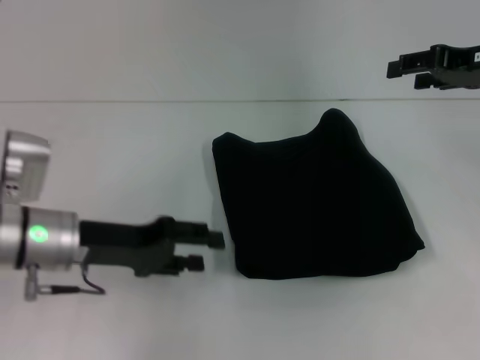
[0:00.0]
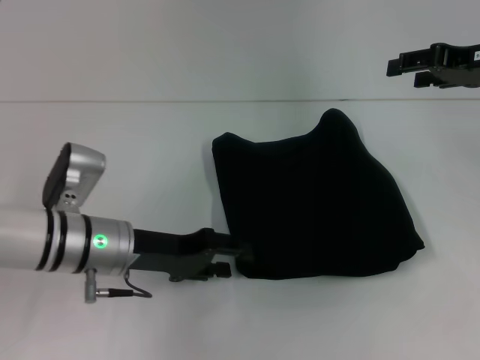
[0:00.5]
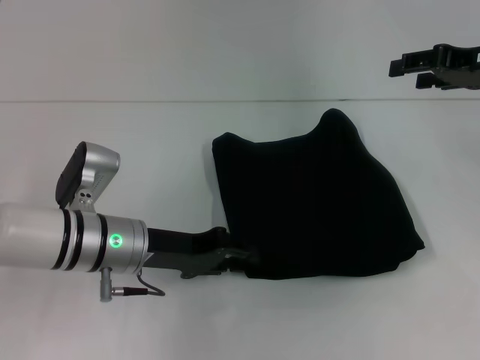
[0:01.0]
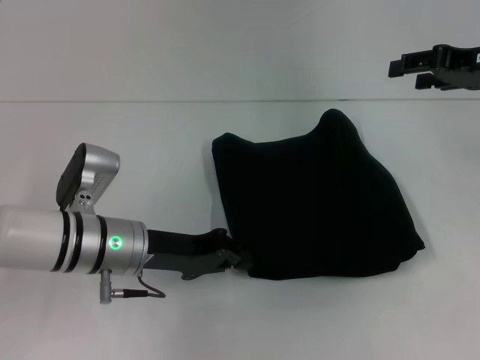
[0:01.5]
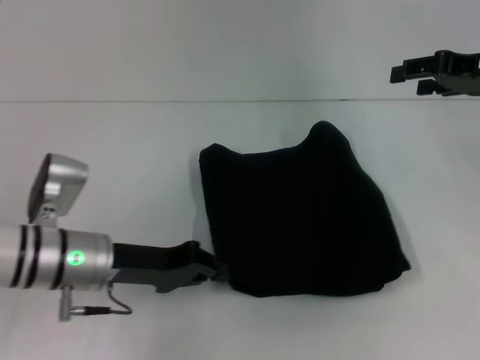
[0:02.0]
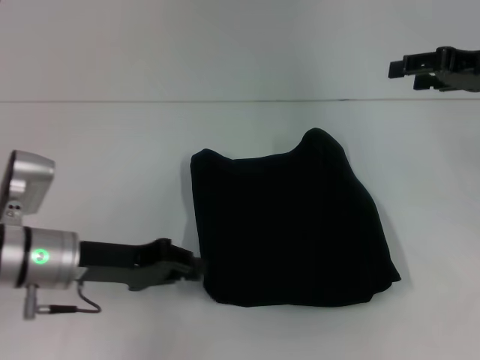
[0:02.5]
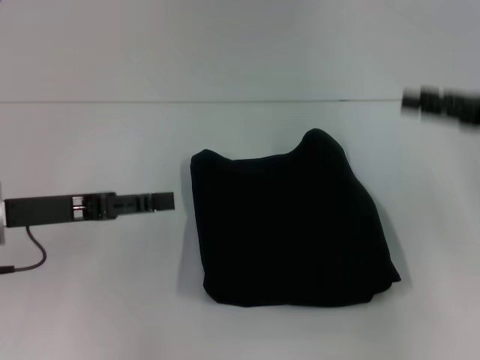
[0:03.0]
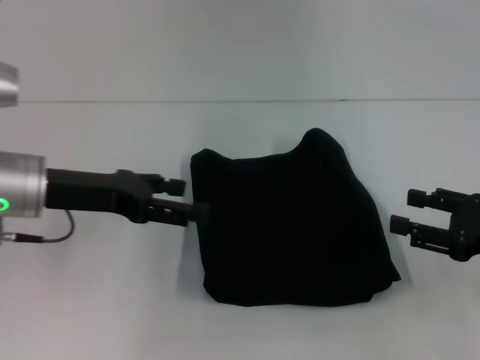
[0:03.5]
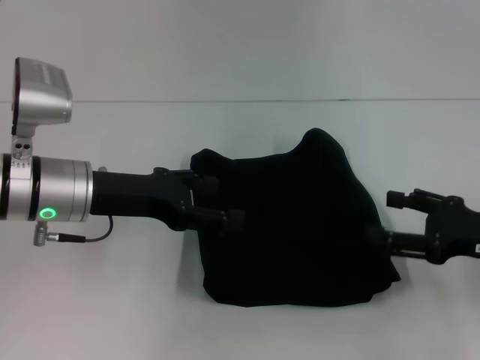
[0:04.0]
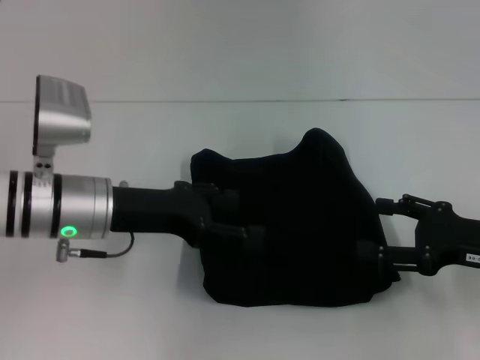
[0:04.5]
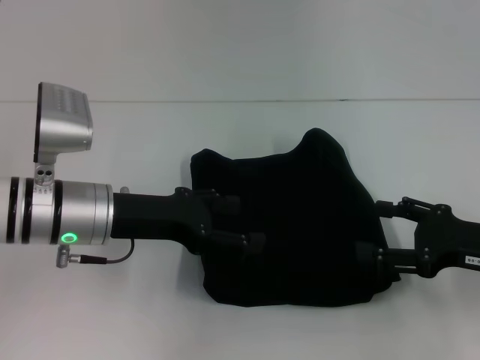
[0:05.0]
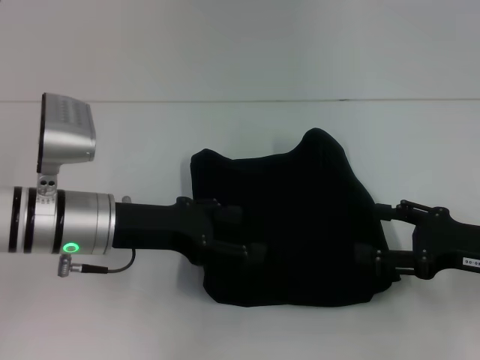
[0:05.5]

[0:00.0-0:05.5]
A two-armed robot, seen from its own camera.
0:00.0 to 0:02.0: The left gripper closes up.
0:02.0 to 0:03.5: The right gripper goes approximately 20 cm backward and downward. Meanwhile the left gripper heads upward, covering some 10 cm, and opens up.
0:03.5 to 0:05.5: The left gripper travels to the right by approximately 5 cm.
